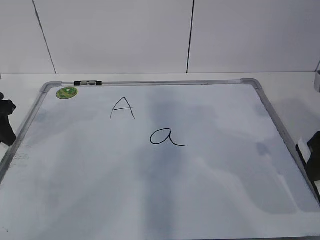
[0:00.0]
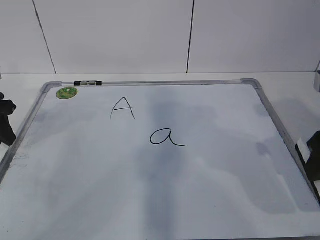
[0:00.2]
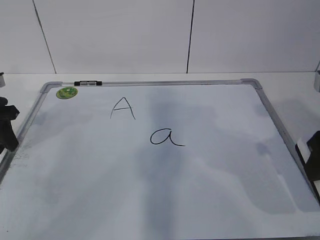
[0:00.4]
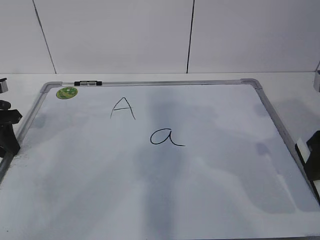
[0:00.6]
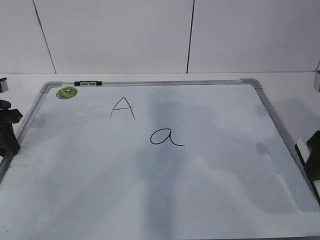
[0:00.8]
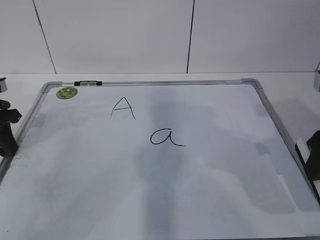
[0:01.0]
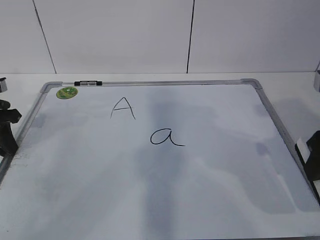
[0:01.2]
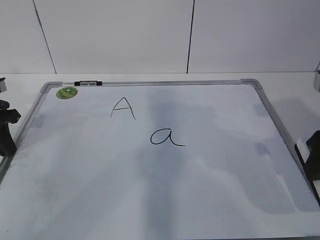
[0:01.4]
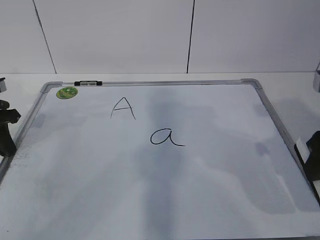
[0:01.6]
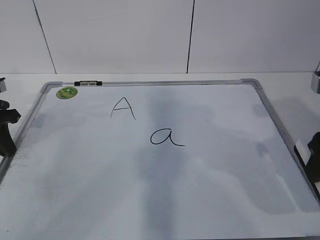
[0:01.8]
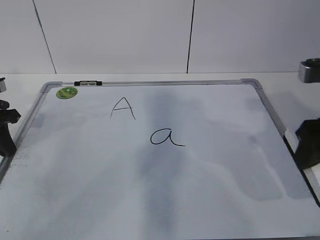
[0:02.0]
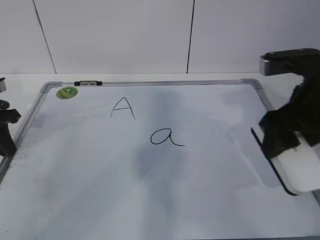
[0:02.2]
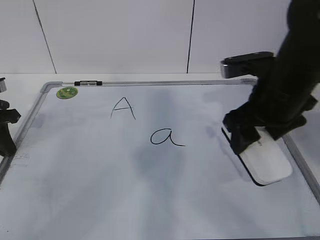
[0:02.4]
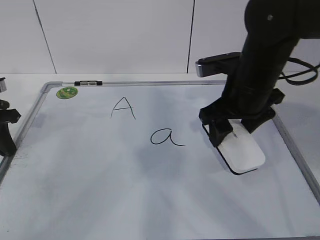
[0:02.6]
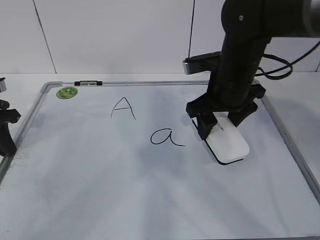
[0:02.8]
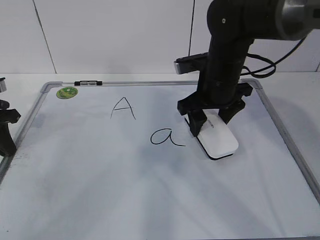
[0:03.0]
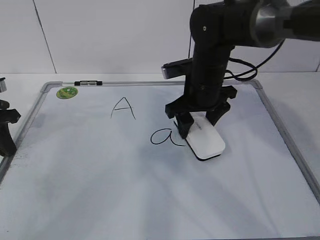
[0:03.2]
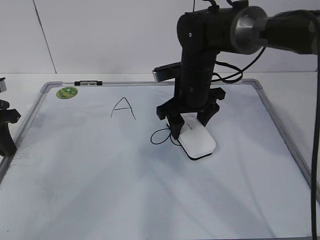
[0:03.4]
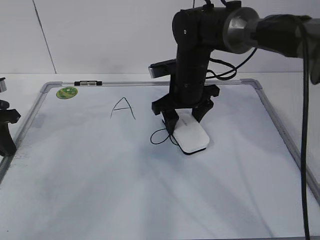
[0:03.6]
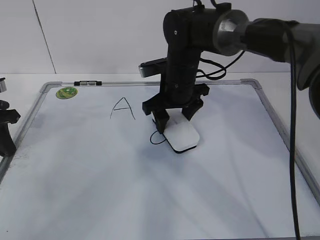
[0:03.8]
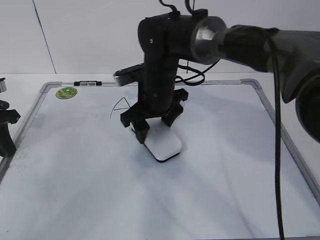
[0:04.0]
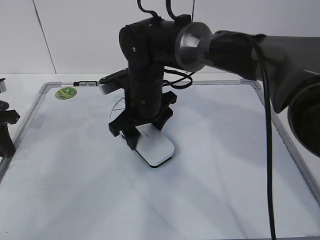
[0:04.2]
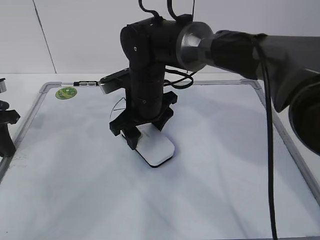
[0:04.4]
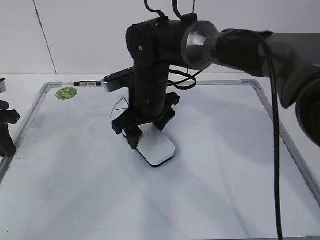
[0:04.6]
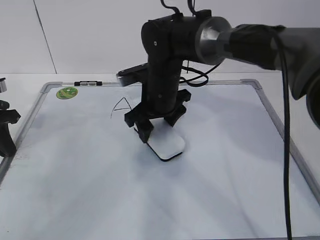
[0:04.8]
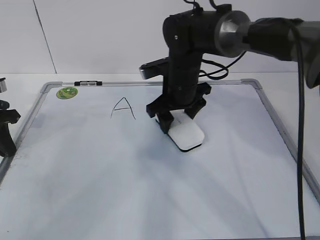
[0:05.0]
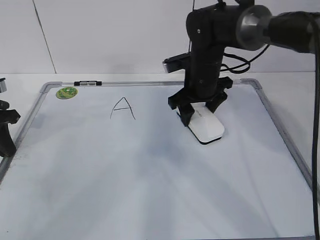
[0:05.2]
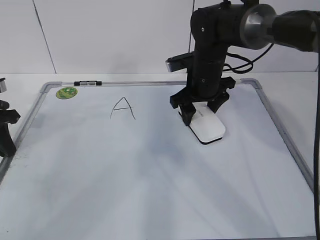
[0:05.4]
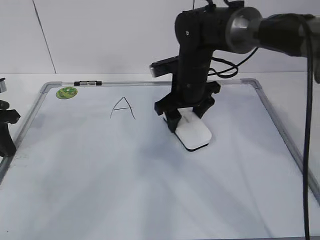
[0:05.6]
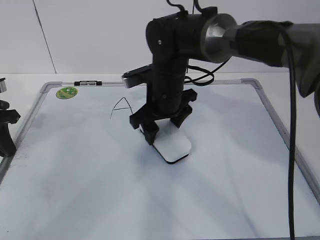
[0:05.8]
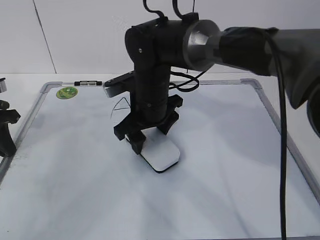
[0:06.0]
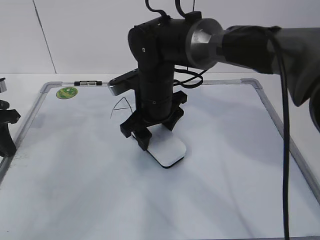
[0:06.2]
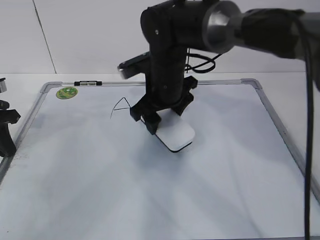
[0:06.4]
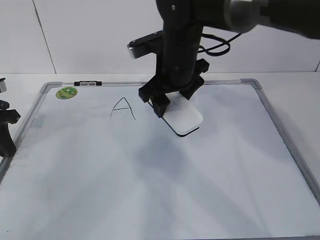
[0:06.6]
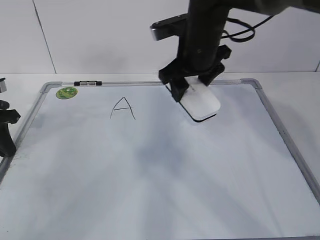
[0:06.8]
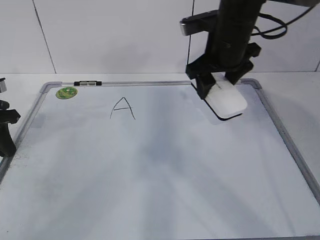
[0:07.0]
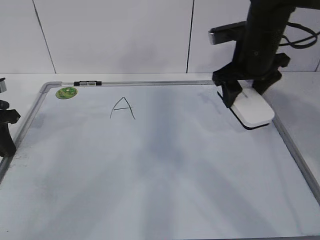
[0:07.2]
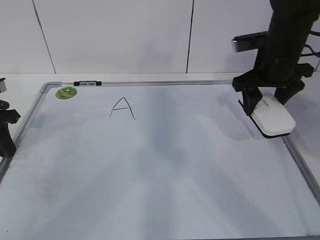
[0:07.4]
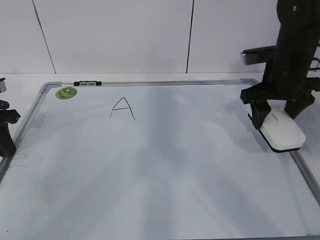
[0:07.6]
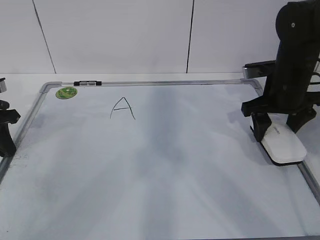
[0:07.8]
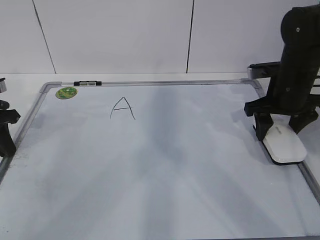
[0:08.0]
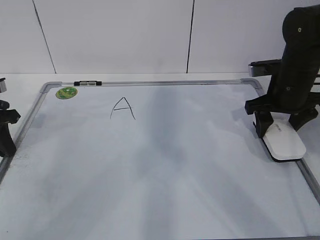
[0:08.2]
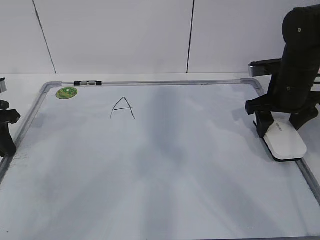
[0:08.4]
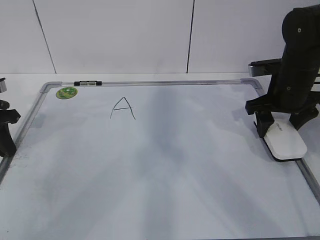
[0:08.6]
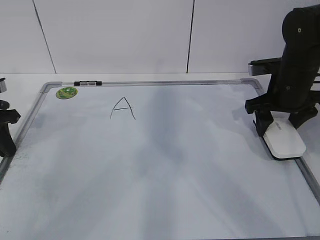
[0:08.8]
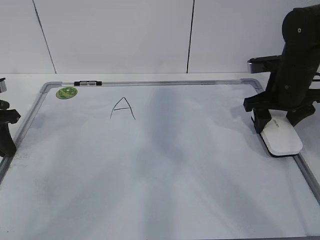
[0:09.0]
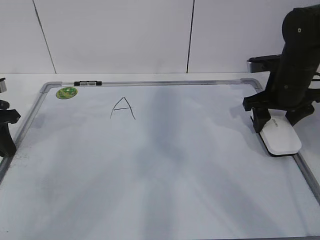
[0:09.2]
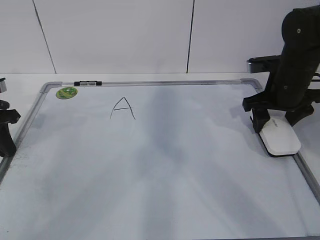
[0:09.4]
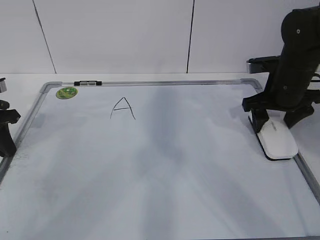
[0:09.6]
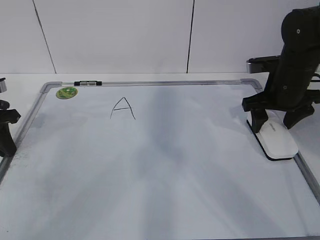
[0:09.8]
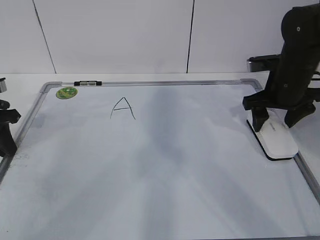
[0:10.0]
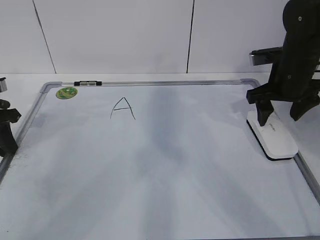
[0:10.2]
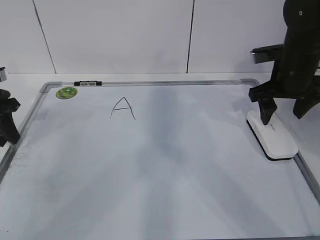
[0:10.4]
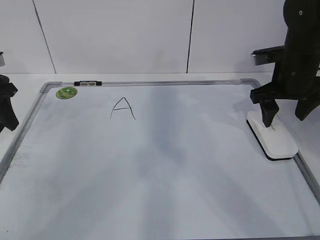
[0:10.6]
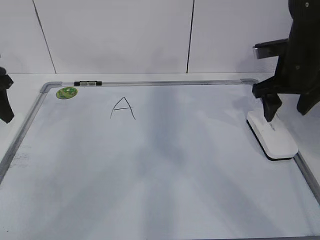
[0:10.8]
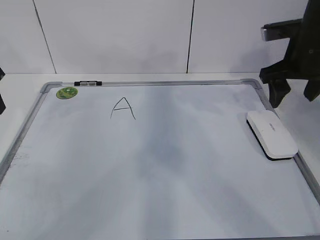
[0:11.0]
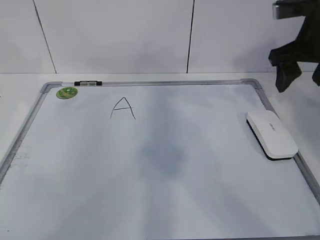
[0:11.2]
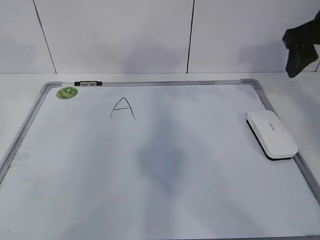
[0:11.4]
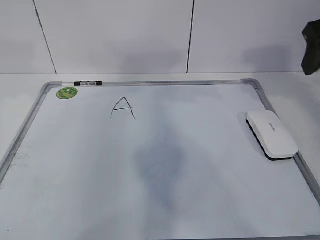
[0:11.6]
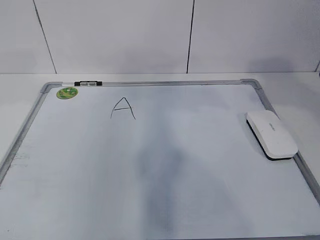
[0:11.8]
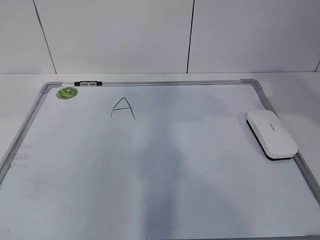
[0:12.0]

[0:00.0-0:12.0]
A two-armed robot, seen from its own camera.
Task of the whole recording: pick up the eraser on the blackboard and erase the letter "a".
Step, 0:00.0 to 0:02.0: Erase the letter a with your right hand.
Step, 0:02.2 to 0:05.0: Put down the eraser with your right hand.
0:00.0 to 0:01.6: The left gripper closes.
0:01.6 to 0:03.0: The right gripper shifts roughly 20 cm forward and to the left.
0:03.0 to 0:04.4: The right gripper is displaced to the left by about 10 cm.
0:04.4 to 0:06.0: The right gripper moves about 10 cm to the right and comes back.
0:06.0 to 0:07.6: The right gripper is displaced to the right by some 25 cm.
0:07.6 to 0:09.0: The grippers stay close to where they were, moving slightly.
0:09.0 to 0:10.4: The right gripper opens its fingers.
0:10.4 to 0:12.0: The right gripper heads backward and upward, covering some 25 cm; the left gripper travels upward and backward by about 25 cm.

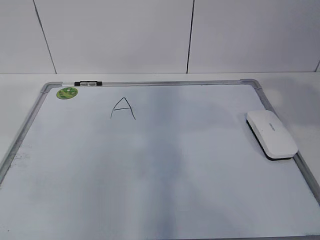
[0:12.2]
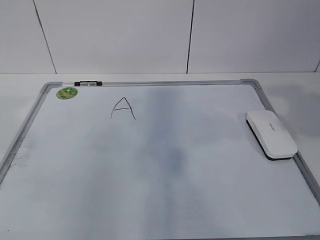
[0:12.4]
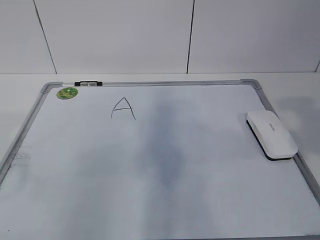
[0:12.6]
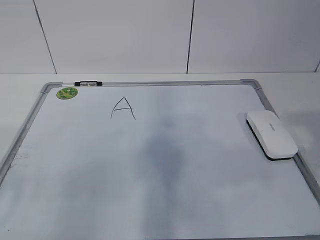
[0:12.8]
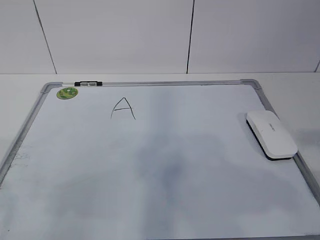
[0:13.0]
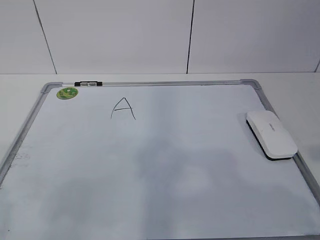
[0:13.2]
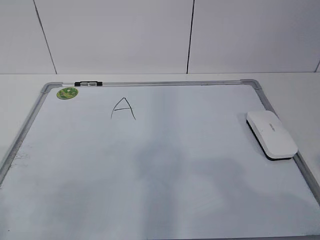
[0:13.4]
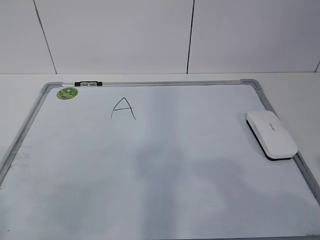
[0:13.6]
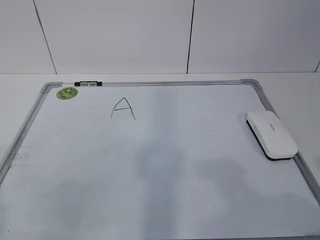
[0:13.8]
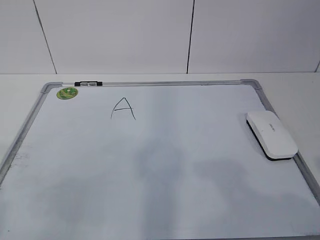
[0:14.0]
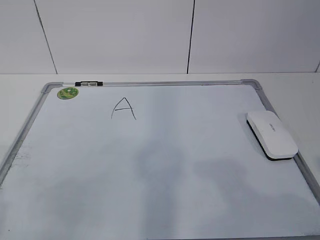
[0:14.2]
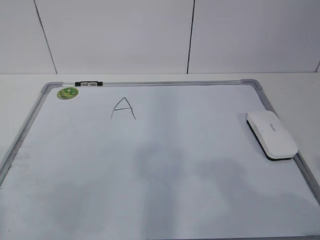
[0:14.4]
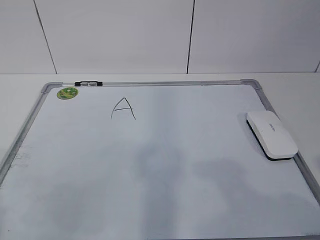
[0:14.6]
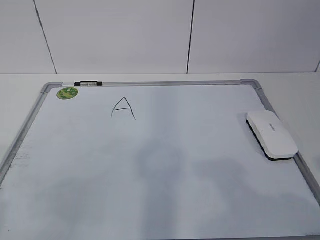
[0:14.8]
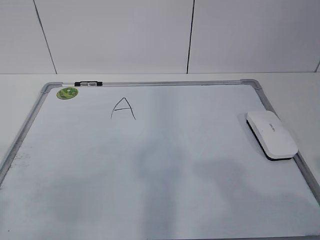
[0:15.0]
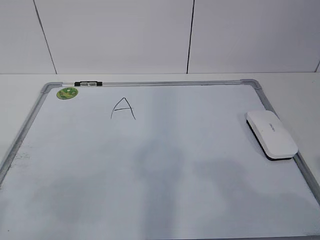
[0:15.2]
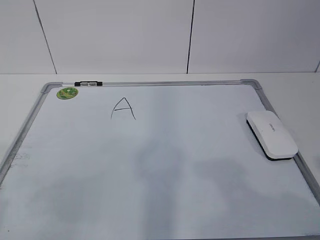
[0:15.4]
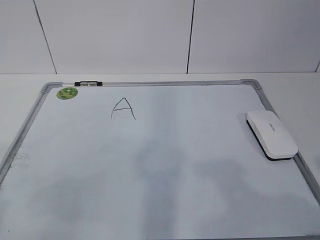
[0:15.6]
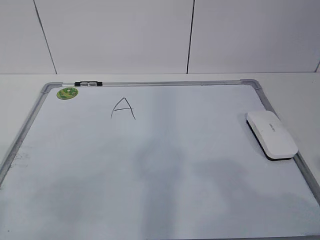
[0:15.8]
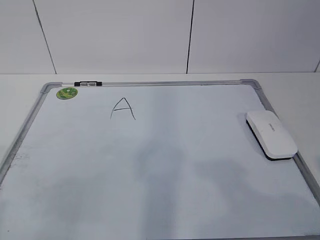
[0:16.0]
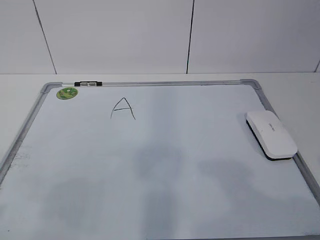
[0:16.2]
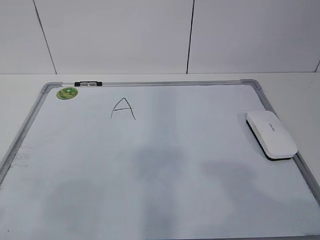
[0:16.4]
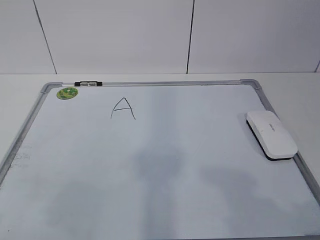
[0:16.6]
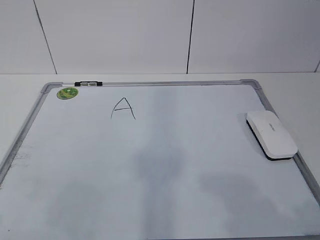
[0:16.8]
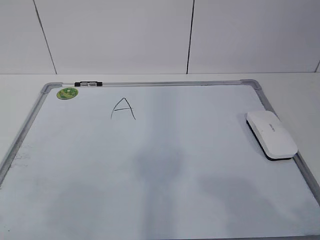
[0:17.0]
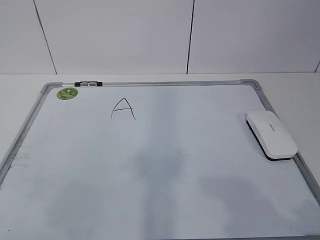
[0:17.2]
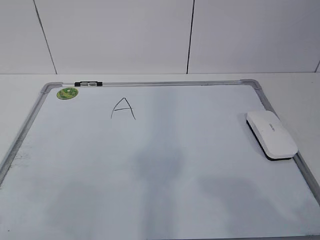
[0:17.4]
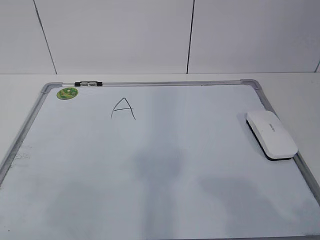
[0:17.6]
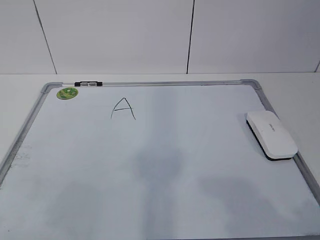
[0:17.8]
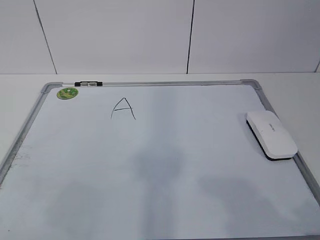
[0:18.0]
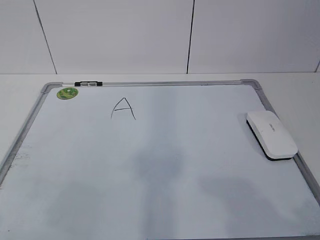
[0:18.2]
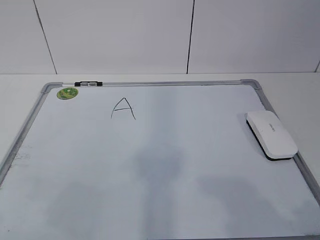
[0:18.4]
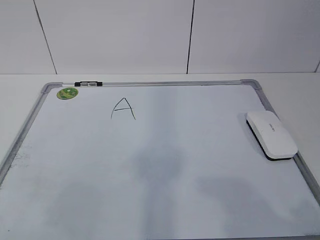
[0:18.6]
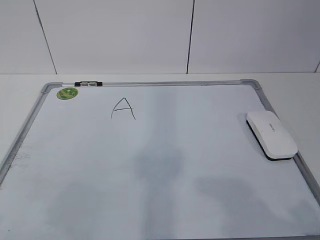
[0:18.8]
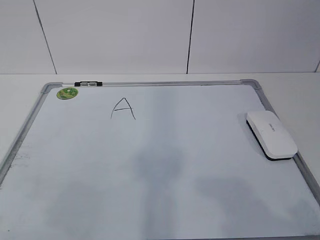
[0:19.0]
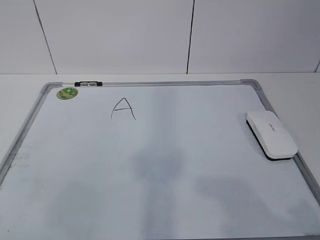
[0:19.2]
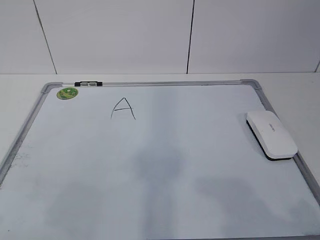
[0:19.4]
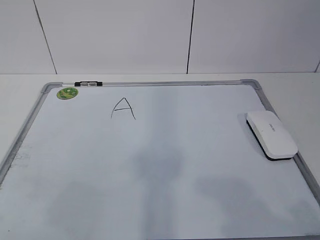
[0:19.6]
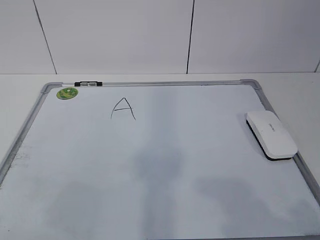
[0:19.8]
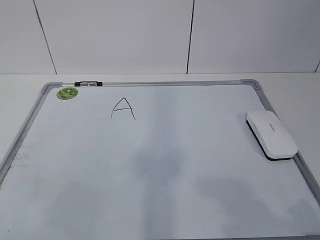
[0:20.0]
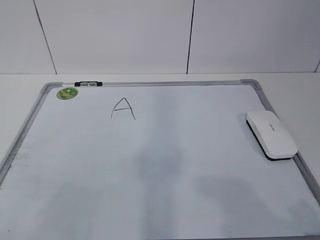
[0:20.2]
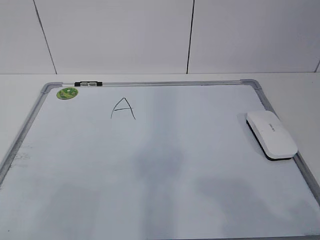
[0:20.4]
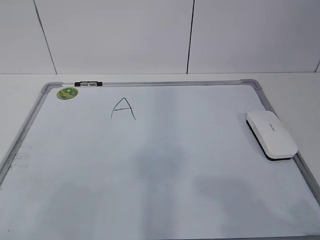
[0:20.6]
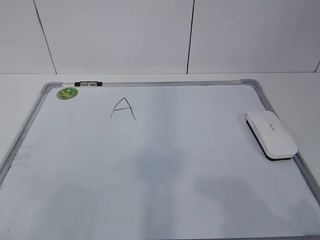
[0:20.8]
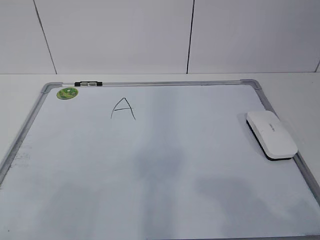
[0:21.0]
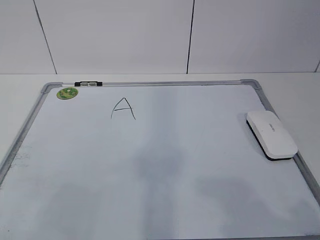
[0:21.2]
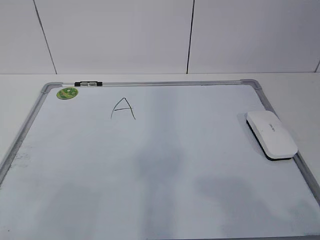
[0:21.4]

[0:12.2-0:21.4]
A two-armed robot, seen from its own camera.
Task of the whole recording: pick up the eraser on the blackboard and erase the letter "a".
0:13.8 to 0:15.2: Both grippers stay put.
0:16.8 to 0:19.8: Both grippers stay put.
